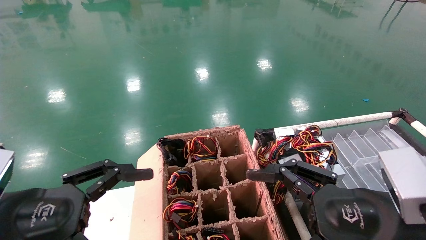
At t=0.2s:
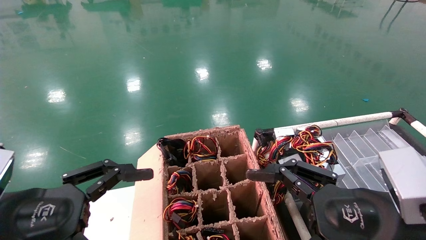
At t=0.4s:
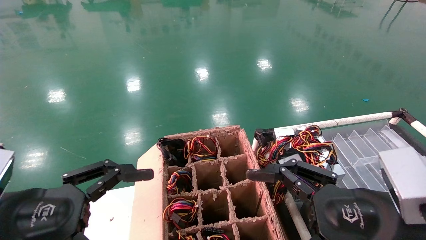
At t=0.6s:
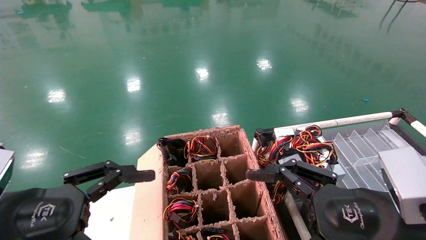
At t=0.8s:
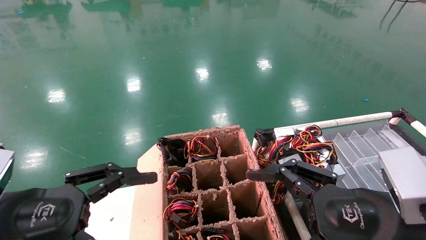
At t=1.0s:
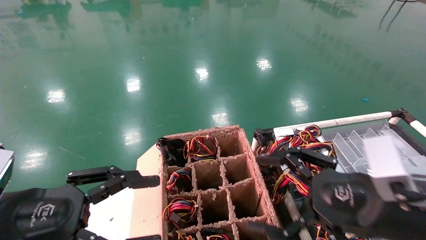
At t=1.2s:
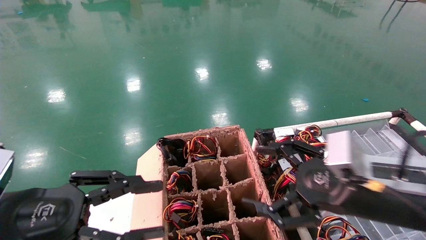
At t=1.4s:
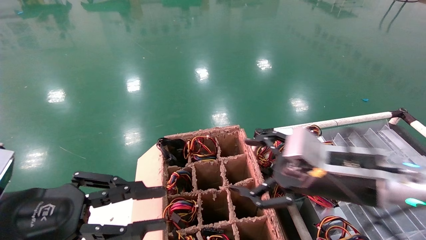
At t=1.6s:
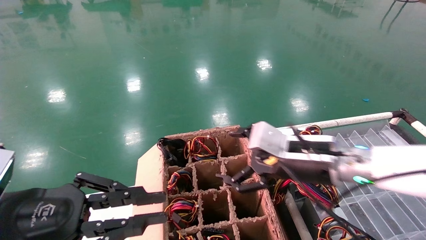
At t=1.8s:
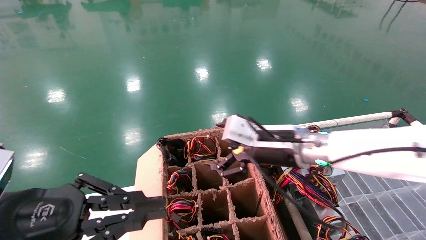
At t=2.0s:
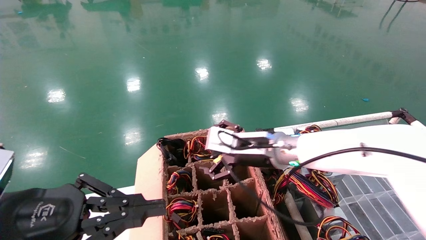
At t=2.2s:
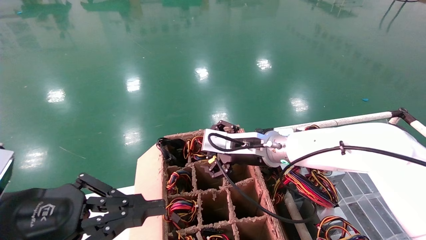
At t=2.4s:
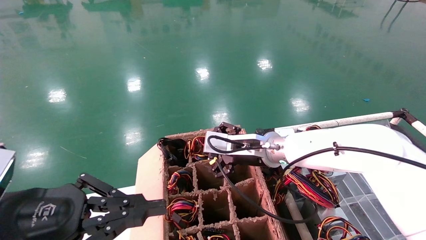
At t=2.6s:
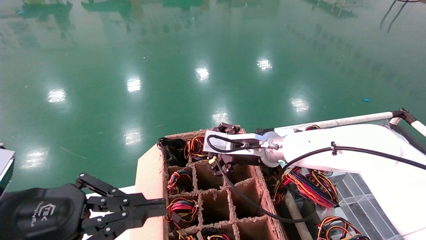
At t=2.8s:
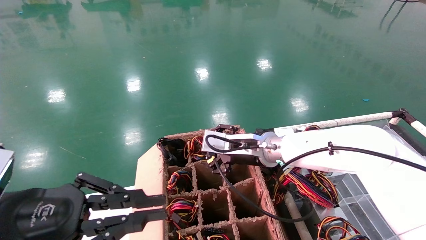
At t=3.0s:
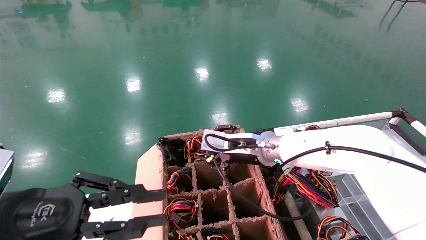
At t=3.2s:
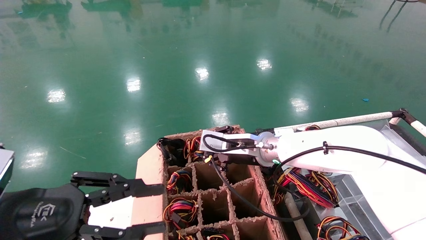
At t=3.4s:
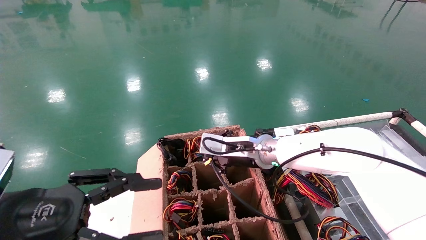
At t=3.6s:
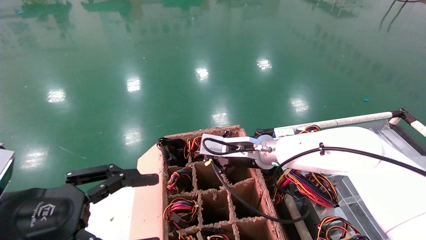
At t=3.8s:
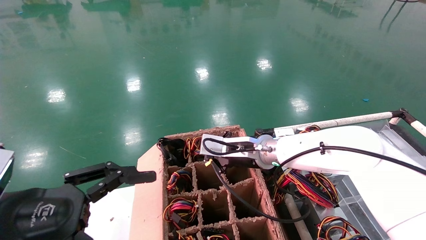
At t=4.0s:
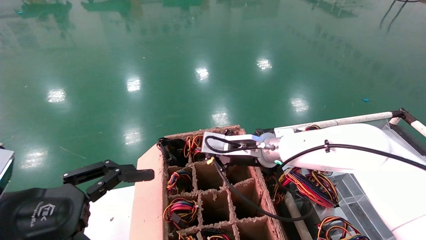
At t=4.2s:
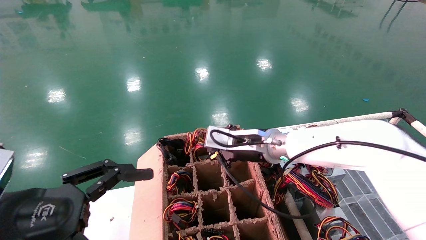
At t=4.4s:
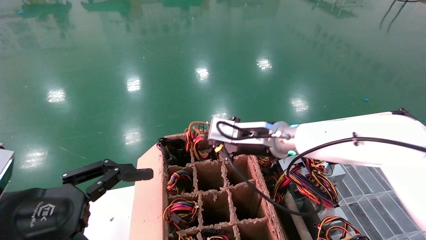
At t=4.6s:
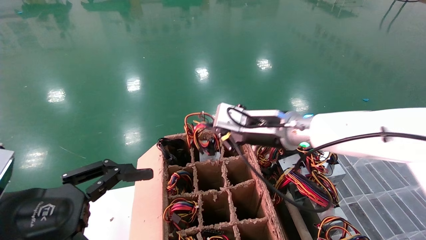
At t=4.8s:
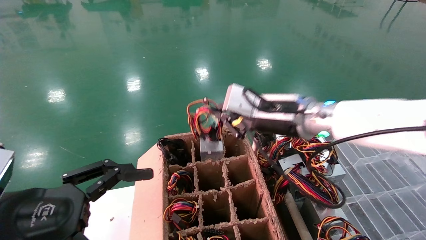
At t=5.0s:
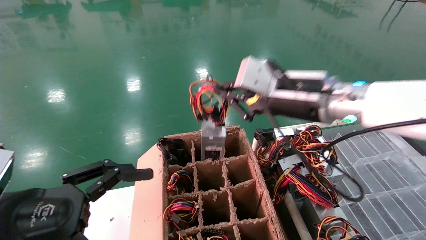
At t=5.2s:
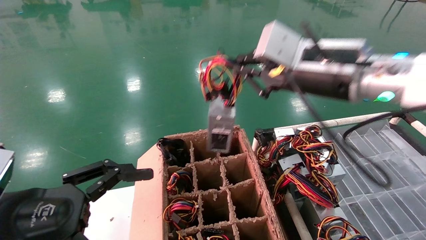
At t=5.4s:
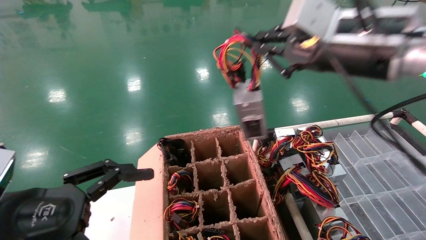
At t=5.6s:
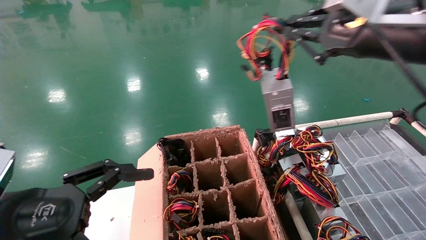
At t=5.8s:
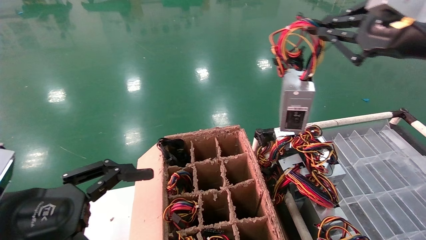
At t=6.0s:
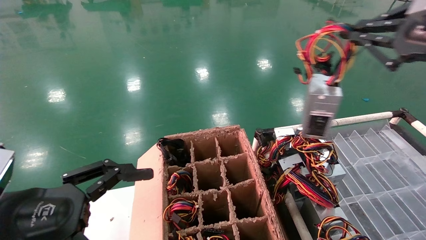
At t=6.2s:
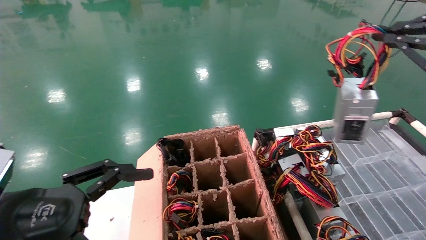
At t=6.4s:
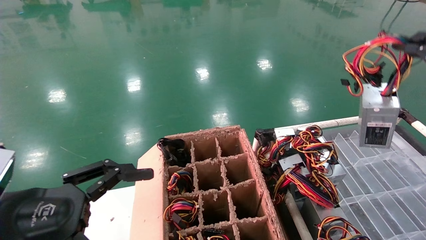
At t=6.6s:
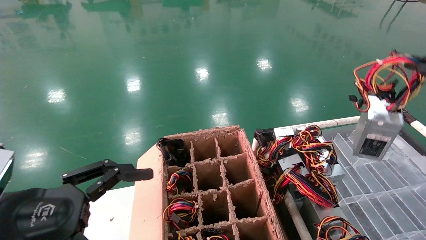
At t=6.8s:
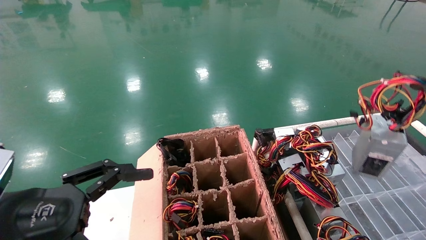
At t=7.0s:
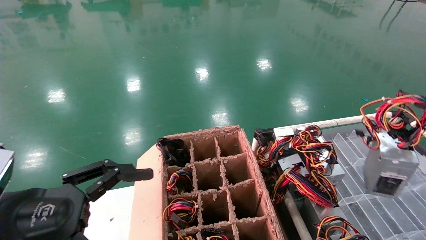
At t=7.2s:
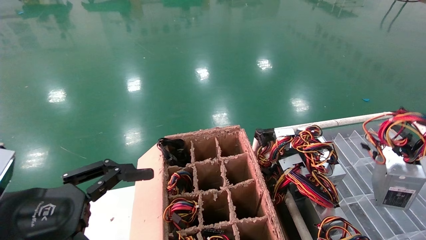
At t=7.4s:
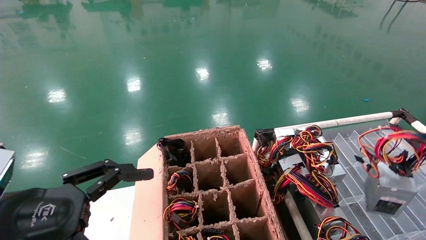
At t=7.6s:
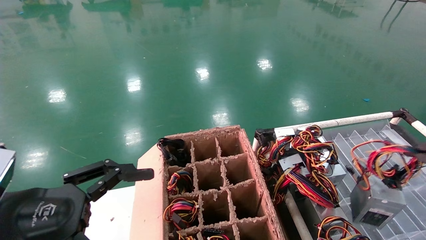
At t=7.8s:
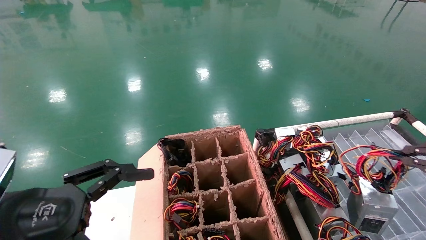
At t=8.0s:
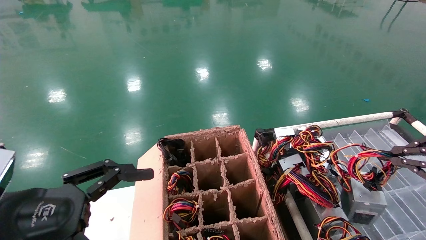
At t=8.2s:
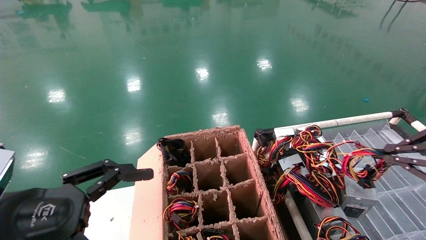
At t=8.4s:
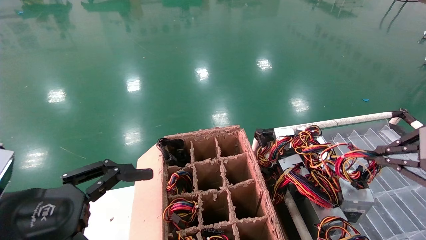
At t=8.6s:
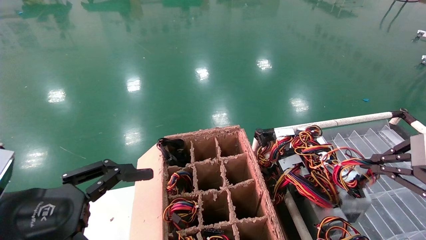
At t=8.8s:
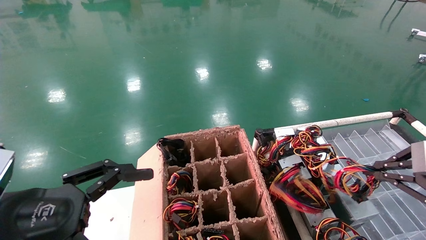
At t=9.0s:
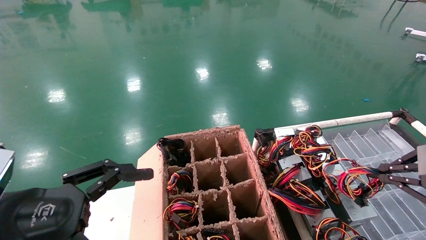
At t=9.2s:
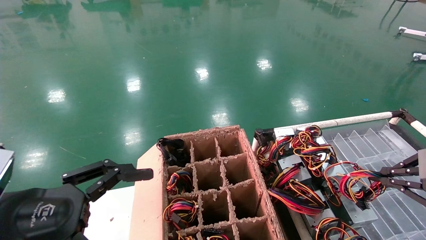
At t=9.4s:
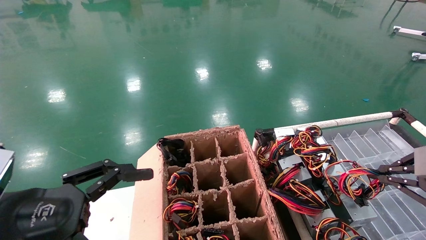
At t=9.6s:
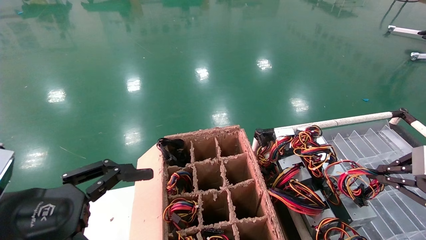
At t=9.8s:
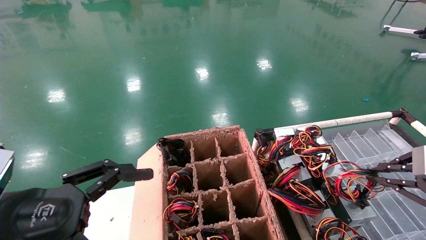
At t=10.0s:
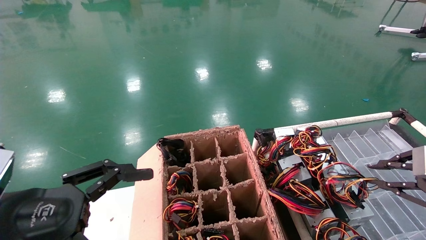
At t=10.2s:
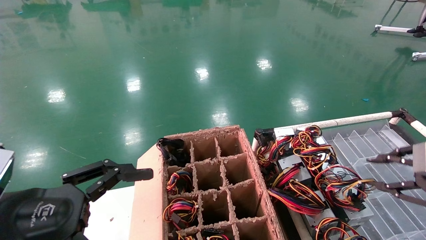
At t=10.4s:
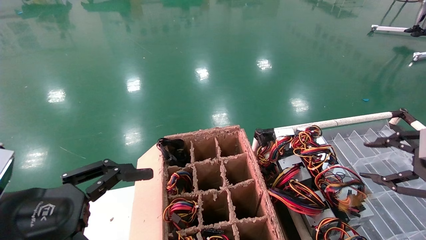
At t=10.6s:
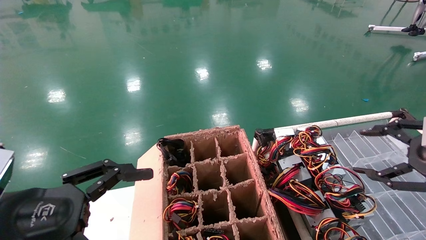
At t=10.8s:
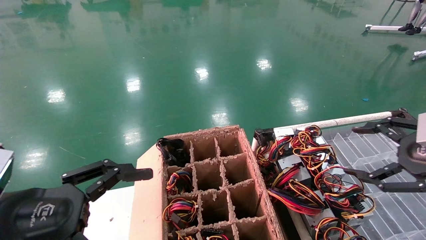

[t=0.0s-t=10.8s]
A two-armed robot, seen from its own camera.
Step, t=1.4s to t=3.8s: Grab and lift the power supply from the large box.
Step, t=4.0s to t=9.8s: Place the power supply on the operating table.
t=0.0s to t=1.6s: The right gripper goes some 15 cm forward and to the left; the left gripper closes its fingers.
t=1.6s to t=3.0s: The right gripper heads forward and to the left, covering roughly 15 cm.
t=3.0s to t=4.6s: The left gripper opens up. The right gripper moves upward, about 5 cm, and closes.
t=4.6s to t=6.2s: The right gripper shifts roughly 35 cm to the right, backward and upward.
t=6.2s to t=7.8s: The right gripper heads downward, covering approximately 10 cm.
t=7.8s to t=9.2s: The right gripper ends up about 5 cm from where it was.
t=9.2s to t=10.8s: The right gripper opens its fingers.

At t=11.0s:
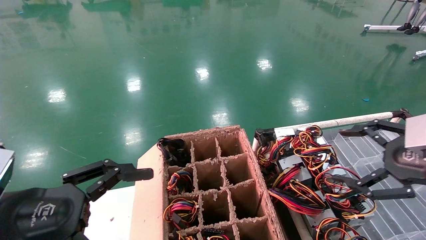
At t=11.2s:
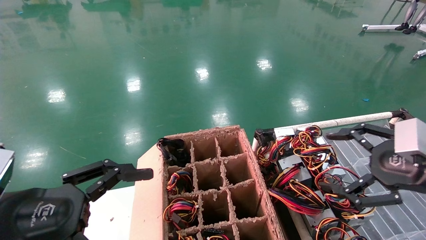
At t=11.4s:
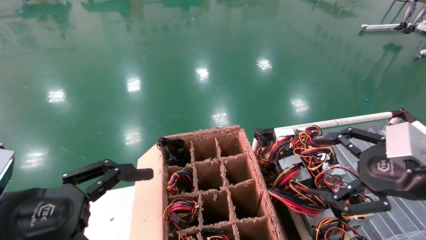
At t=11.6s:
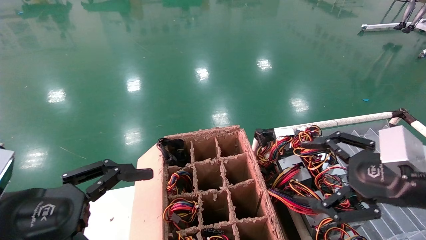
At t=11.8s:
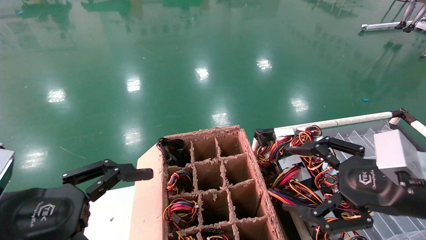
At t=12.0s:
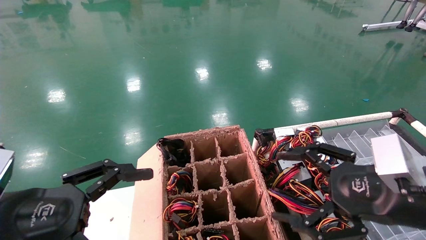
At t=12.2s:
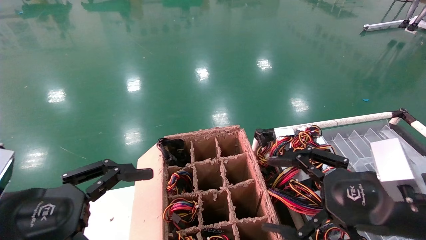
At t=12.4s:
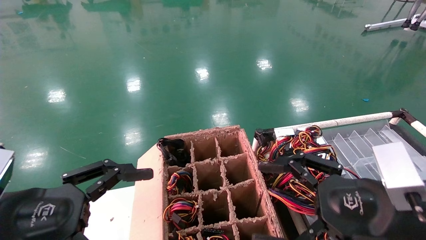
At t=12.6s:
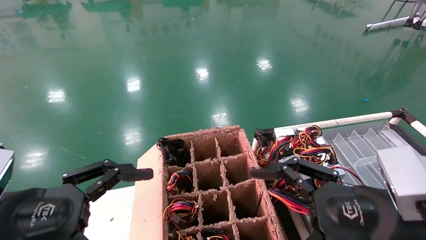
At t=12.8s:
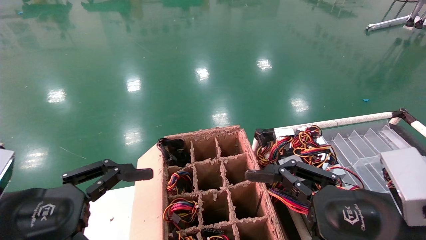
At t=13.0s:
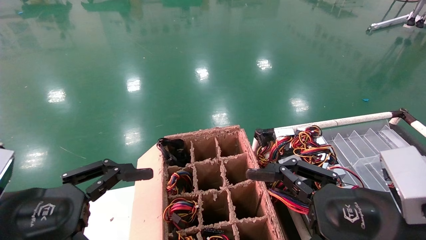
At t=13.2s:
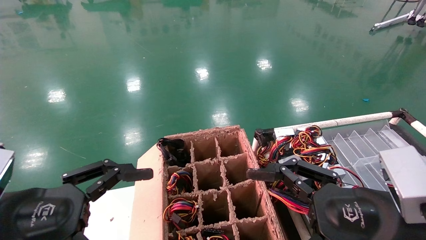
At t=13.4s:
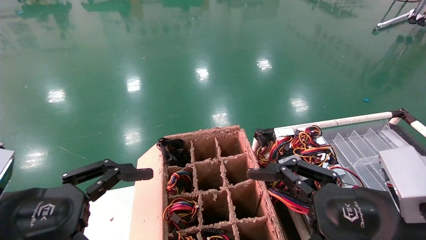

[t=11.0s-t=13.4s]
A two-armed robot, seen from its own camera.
t=11.0s to t=12.2s: The right gripper heads to the left, covering roughly 10 cm.
t=12.2s to t=13.4s: The grippers make only small movements.
